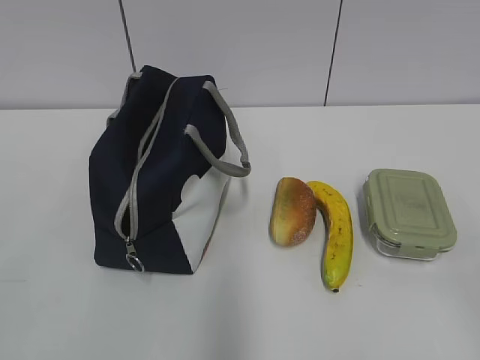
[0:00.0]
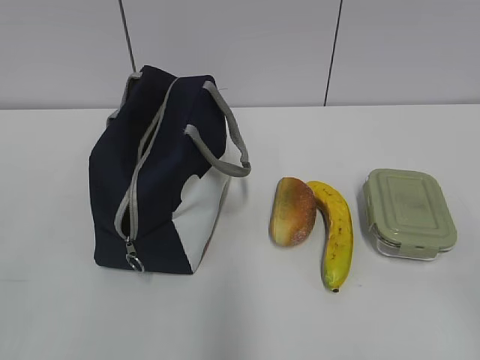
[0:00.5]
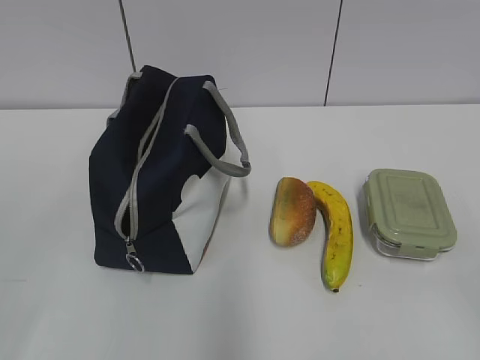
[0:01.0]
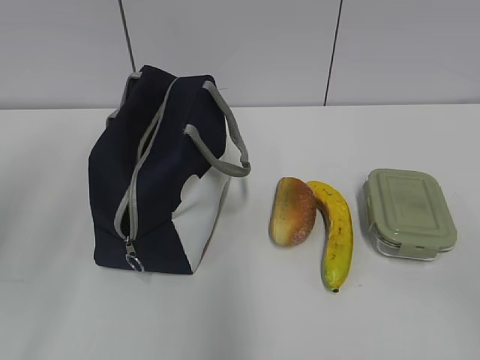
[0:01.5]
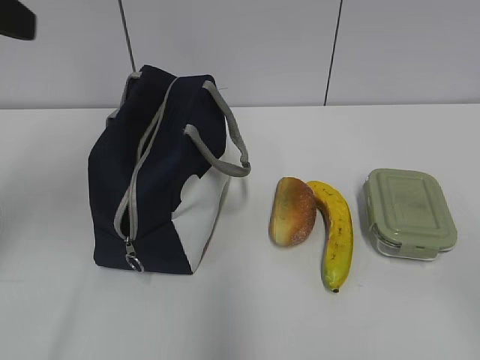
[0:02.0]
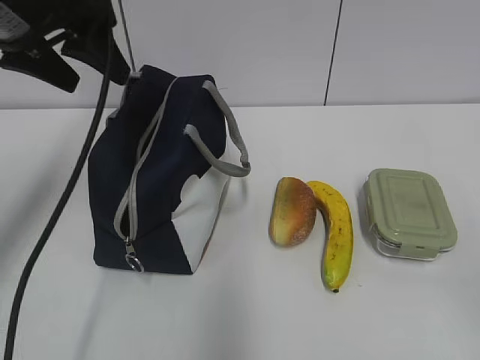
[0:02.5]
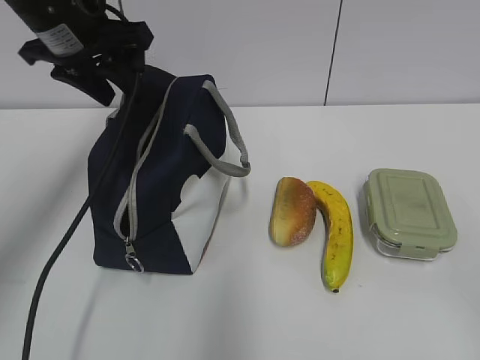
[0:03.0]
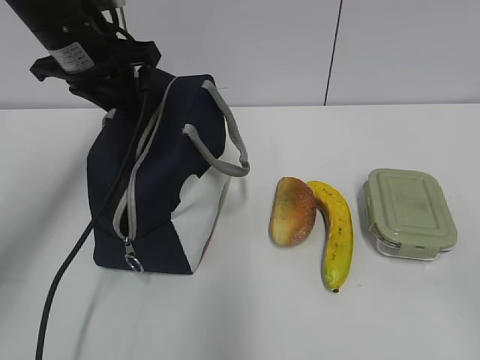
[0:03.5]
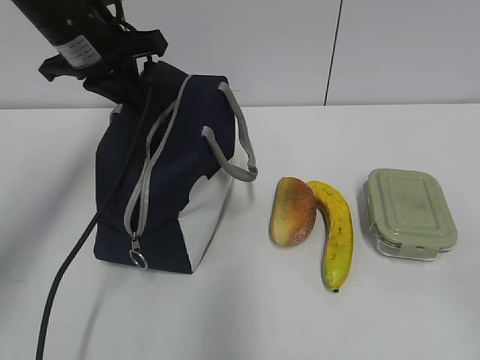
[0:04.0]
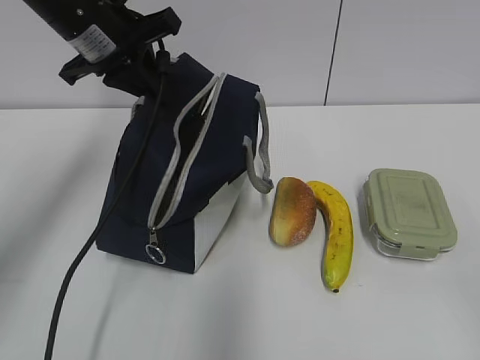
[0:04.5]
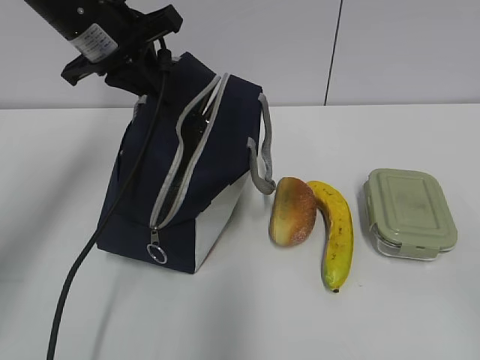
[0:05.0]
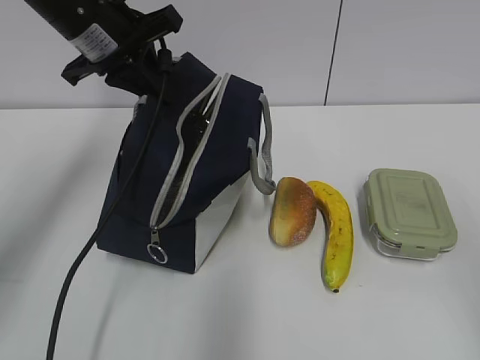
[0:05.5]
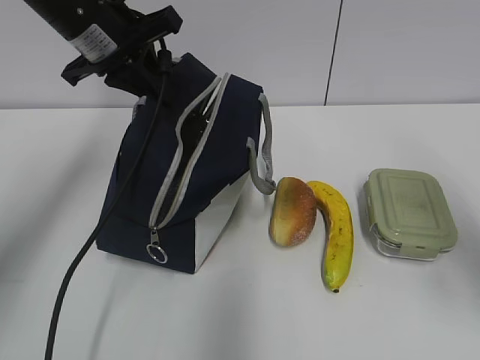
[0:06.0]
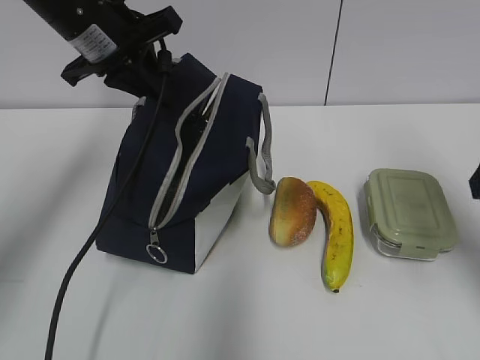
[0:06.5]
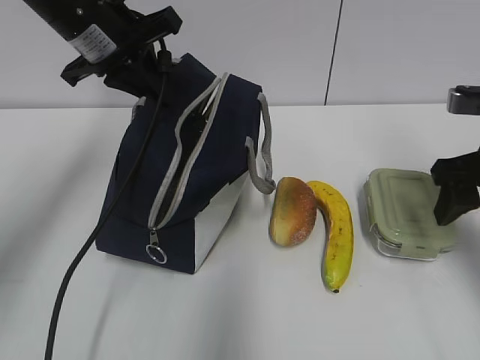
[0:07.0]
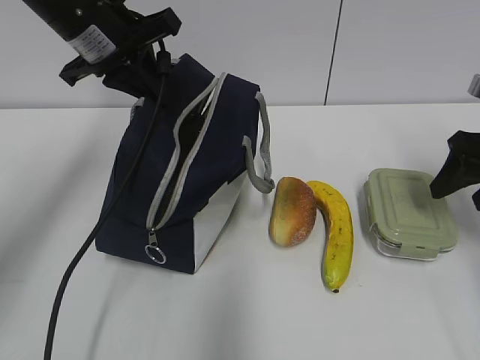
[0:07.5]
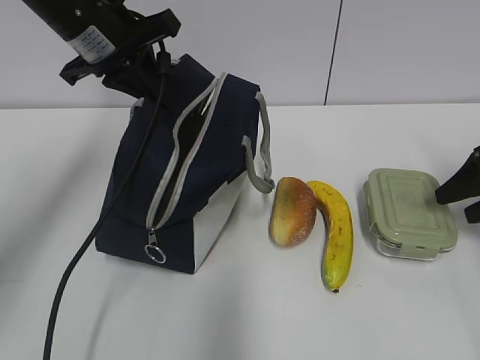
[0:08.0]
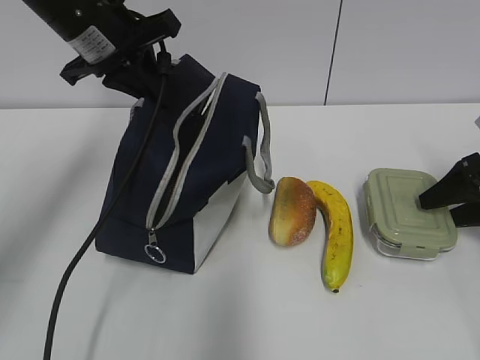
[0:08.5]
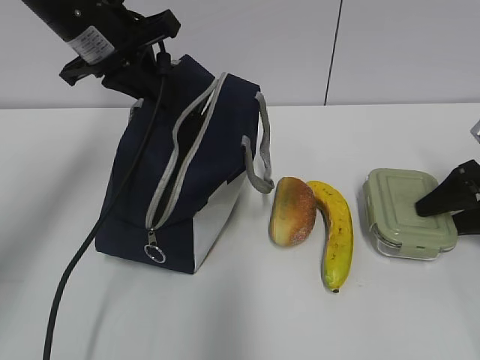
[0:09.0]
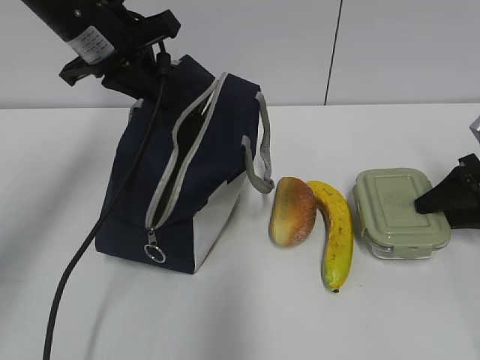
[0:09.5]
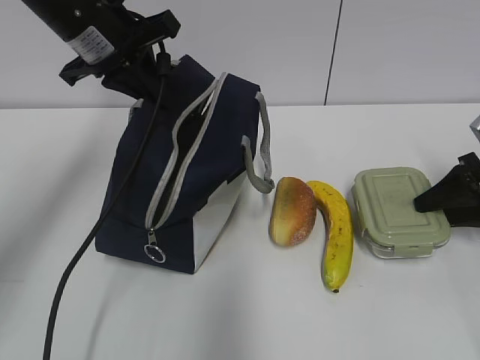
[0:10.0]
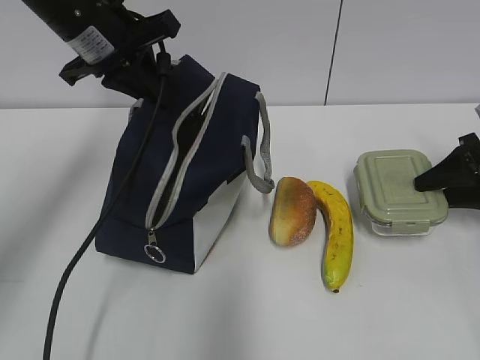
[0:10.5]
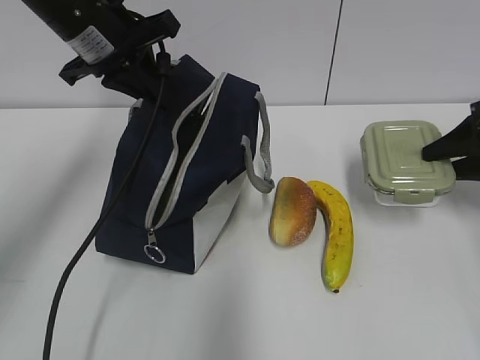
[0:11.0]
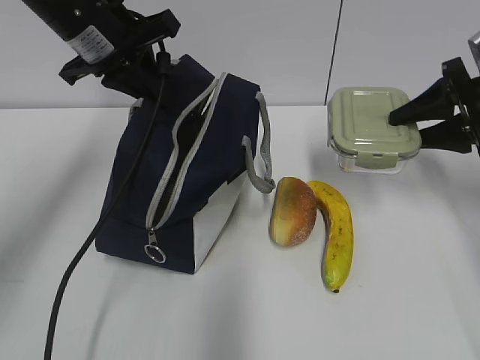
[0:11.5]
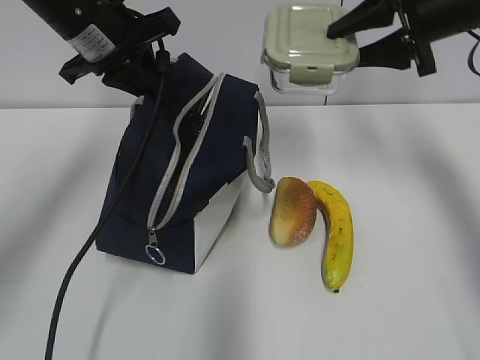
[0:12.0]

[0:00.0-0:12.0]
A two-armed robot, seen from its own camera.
Step, 0.0 to 9.5 s: Grab the lunch box with your right hand.
2.0 to 4.0 s: The left gripper moves forward, to the right and downward, roughly 20 cm, and closes.
4.0 to 6.0 s: The right gripper shifts approximately 15 cm forward.
6.0 to 8.0 s: The right gripper travels forward, downward and to the right by roughly 25 cm.
8.0 to 10.0 s: The grippers move only a little.
10.0 to 12.0 s: The right gripper goes roughly 20 cm upward and to the left.

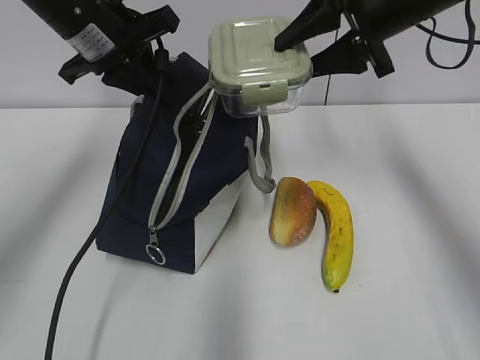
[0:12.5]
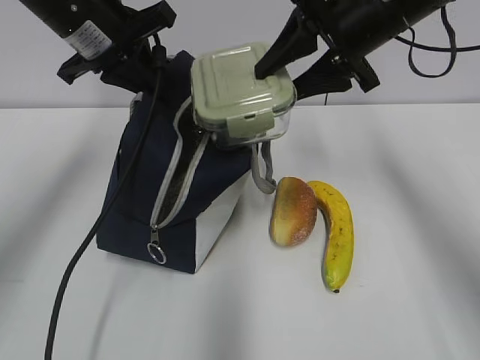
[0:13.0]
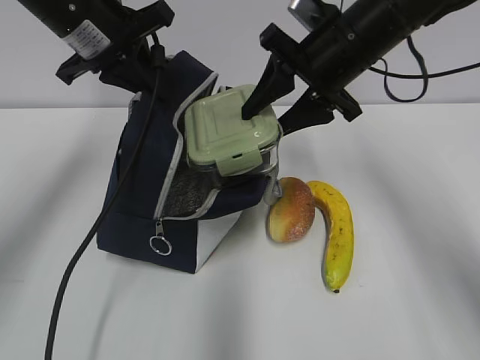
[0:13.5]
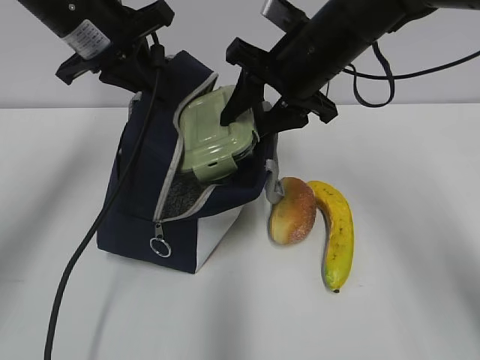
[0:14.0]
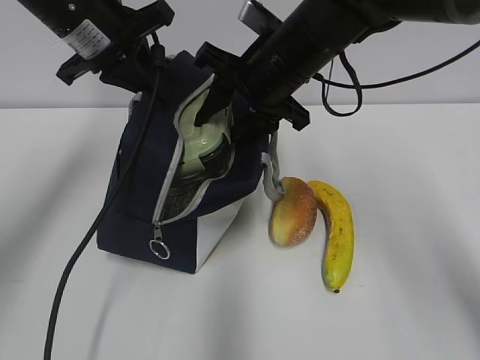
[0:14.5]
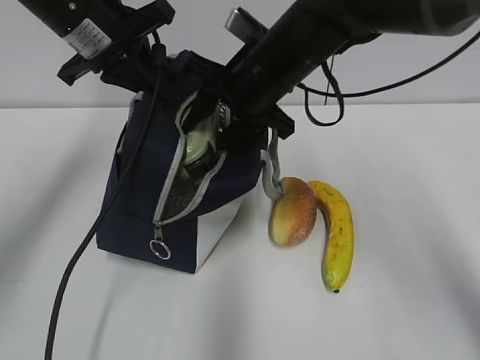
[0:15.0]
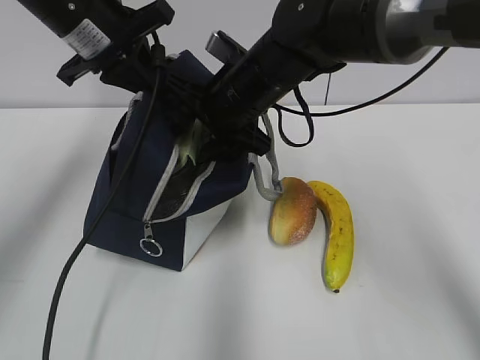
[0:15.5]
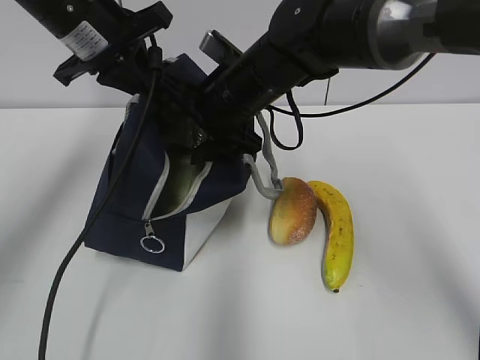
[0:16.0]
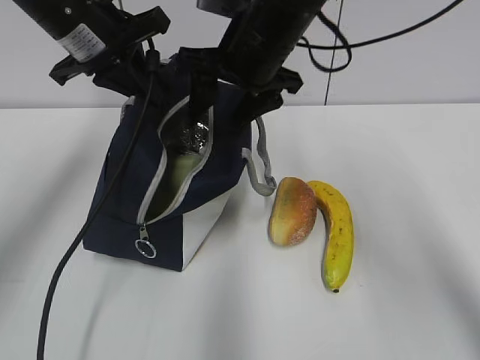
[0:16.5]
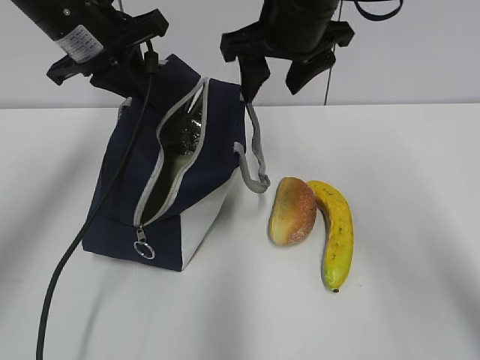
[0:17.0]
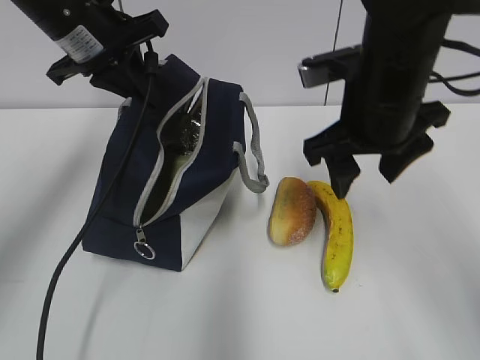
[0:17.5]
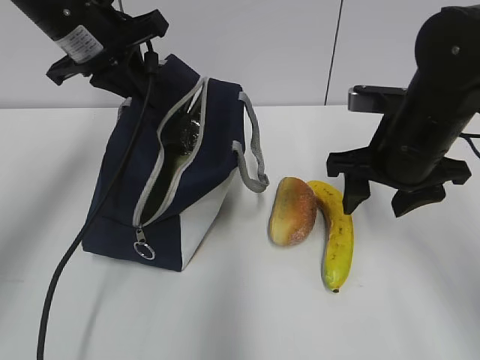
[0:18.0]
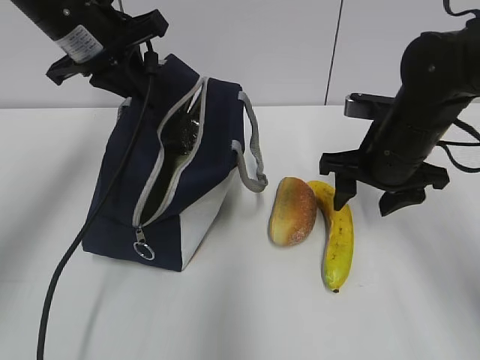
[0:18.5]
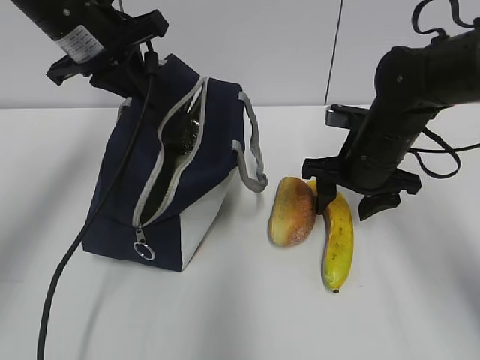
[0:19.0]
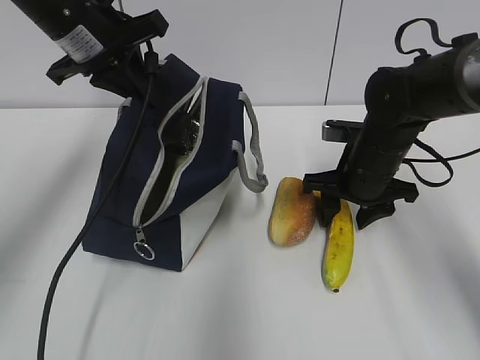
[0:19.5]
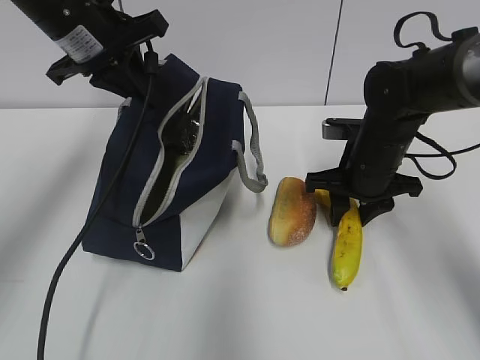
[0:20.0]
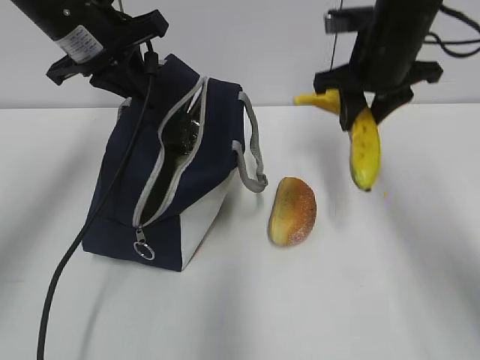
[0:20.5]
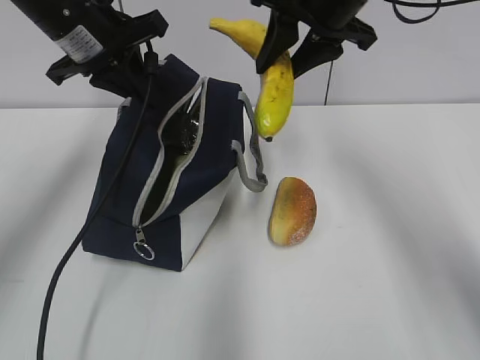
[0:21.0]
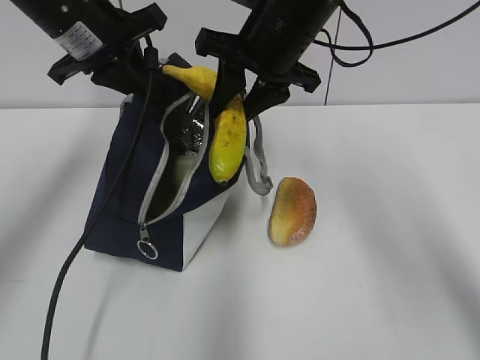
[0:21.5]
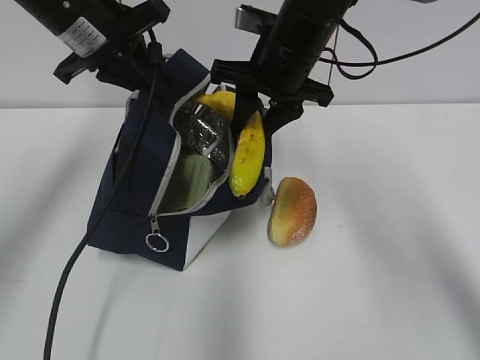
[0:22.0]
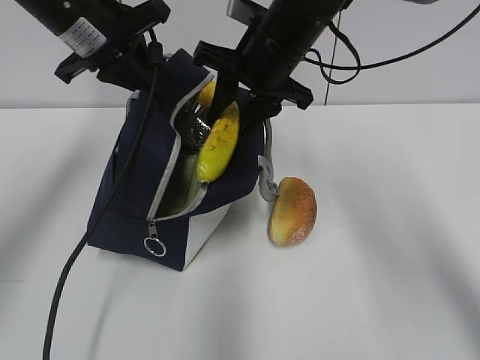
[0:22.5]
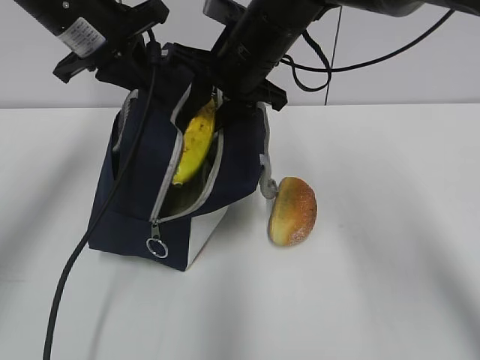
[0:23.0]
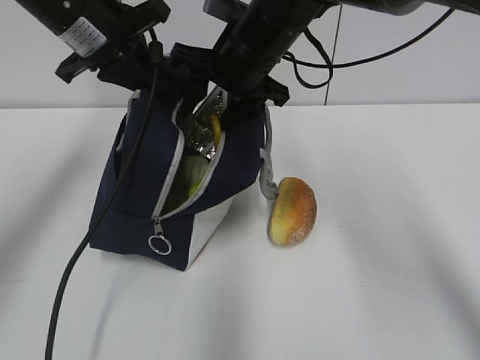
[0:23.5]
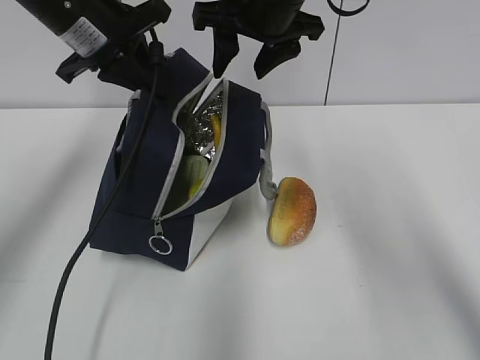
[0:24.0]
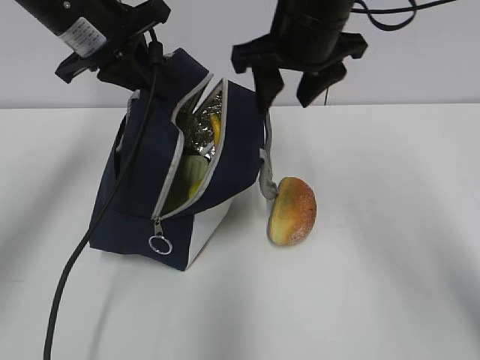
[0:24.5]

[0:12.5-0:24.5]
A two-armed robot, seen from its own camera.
Step, 13.5 to 16.0 s: Place it into the bag with your right hand.
Step, 16.5 to 19.5 s: Grab the banana with your right hand.
Step, 20.0 to 23.5 s: Place it into the bag with your right hand.
12.5 to 14.5 s: The right gripper travels to the left and downward by about 15 cm.
16.5 to 18.5 s: The right gripper travels to the right and downward by roughly 15 cm.
18.5 to 20.5 s: The right gripper goes some 10 cm upward and forward, and closes up.
20.5 to 22.5 s: The right gripper moves to the left, some 10 cm.
22.5 to 24.5 s: The right gripper shifts by some 5 cm.

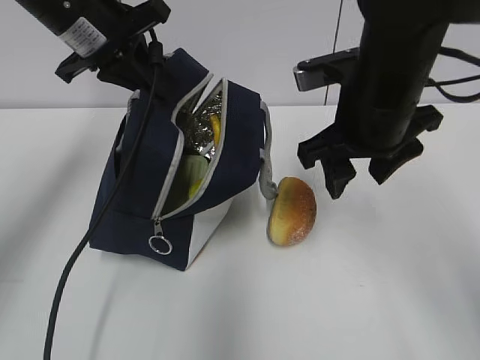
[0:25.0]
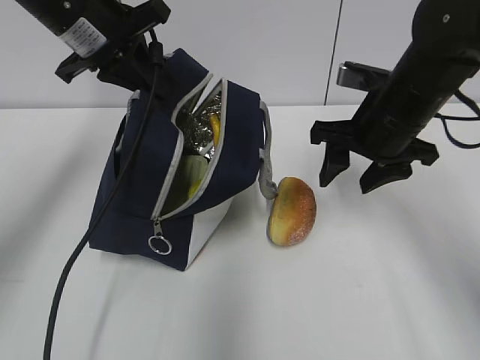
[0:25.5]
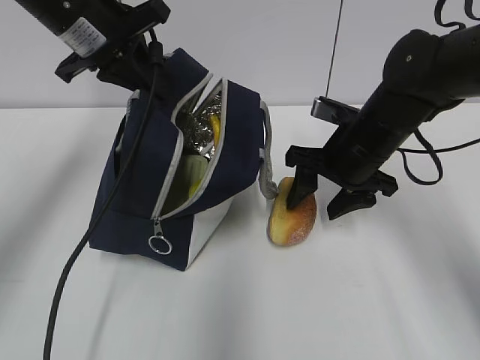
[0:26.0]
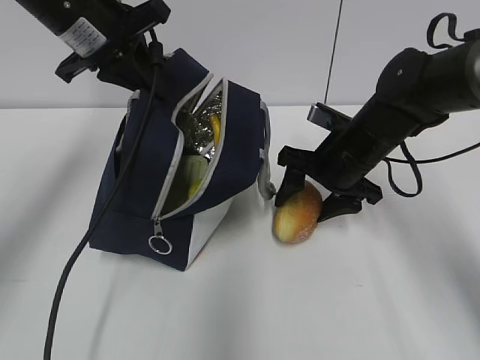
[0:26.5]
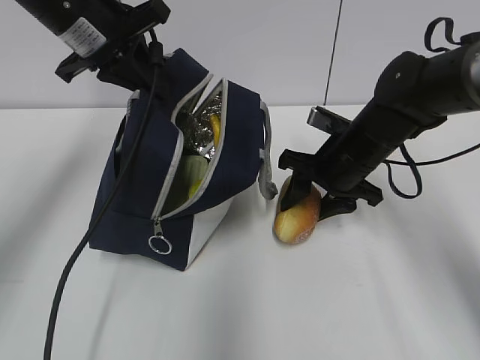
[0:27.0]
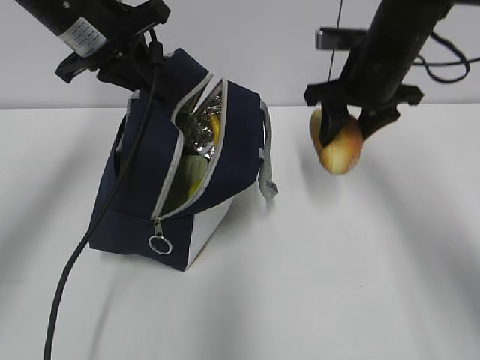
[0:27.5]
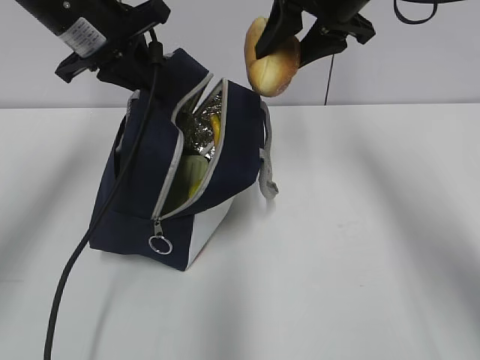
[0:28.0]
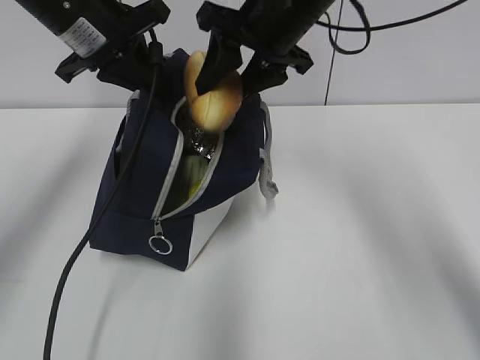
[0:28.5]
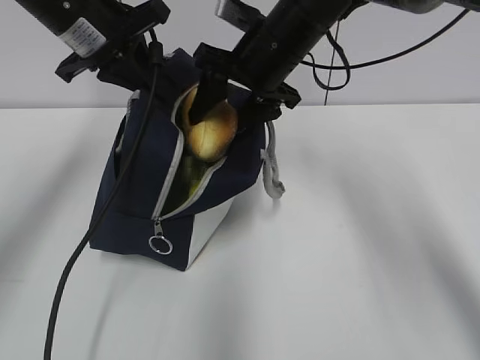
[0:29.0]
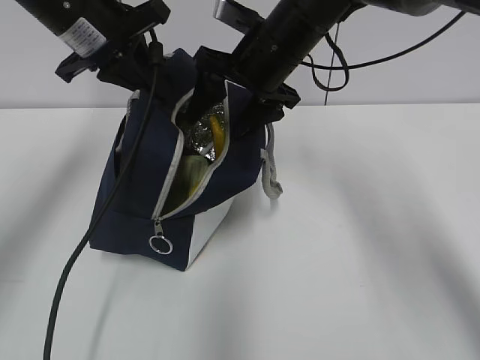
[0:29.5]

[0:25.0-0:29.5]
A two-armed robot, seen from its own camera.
Step, 25.0 to 27.0 s: Grab the bread with your right hand.
25.0 to 27.0 s: The right gripper moves downward and forward, roughly 15 cm.
27.0 to 29.5 s: The right gripper moves upward and to the left, about 15 cm.
